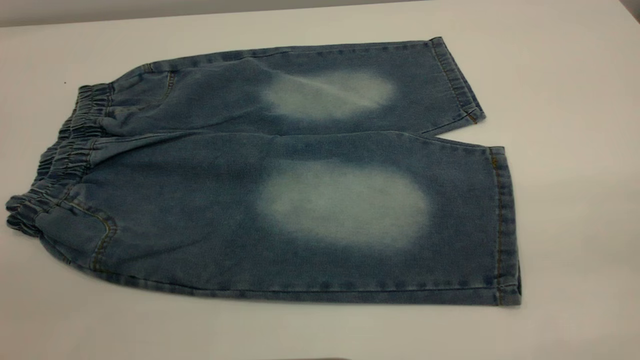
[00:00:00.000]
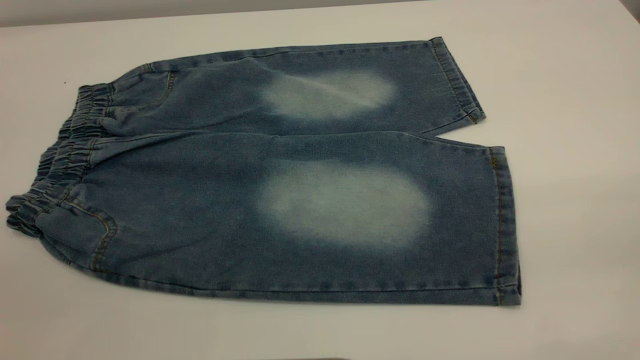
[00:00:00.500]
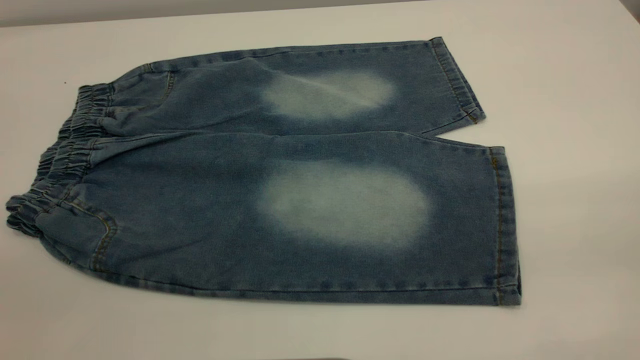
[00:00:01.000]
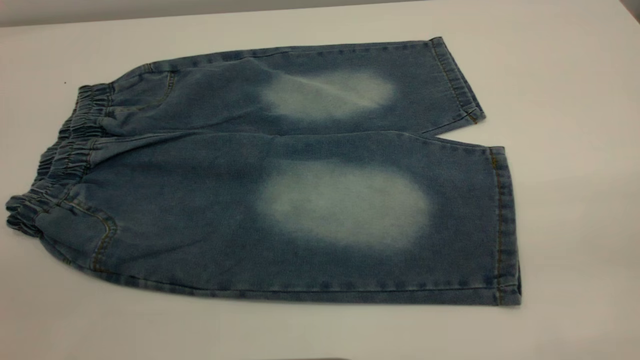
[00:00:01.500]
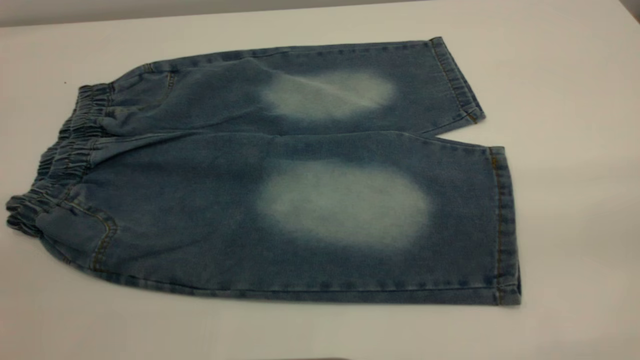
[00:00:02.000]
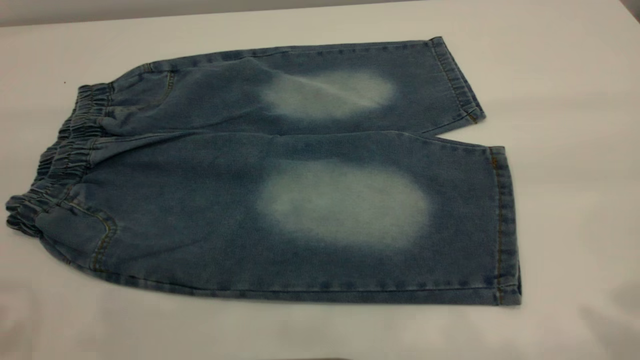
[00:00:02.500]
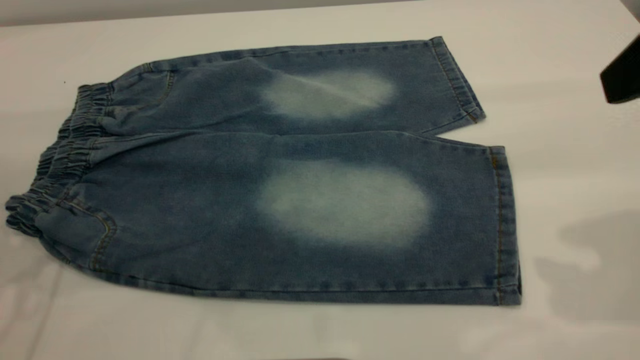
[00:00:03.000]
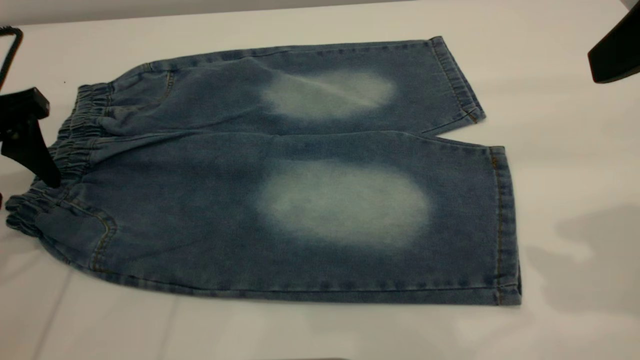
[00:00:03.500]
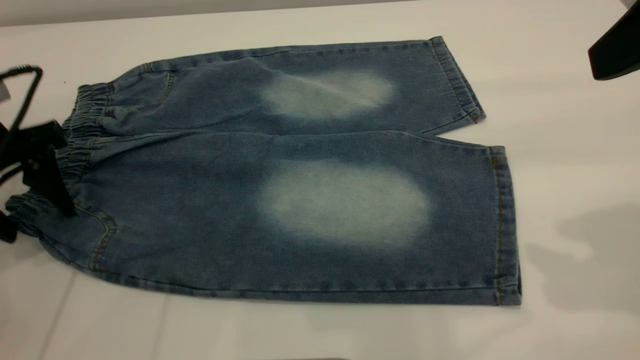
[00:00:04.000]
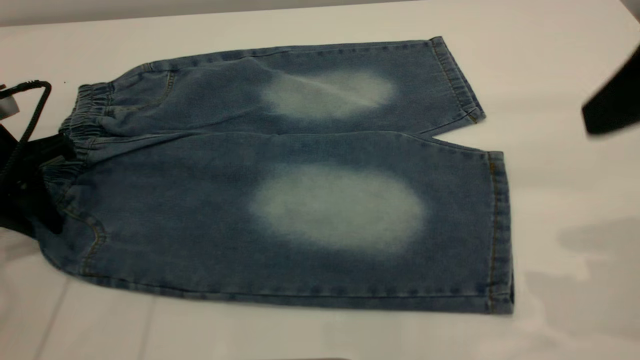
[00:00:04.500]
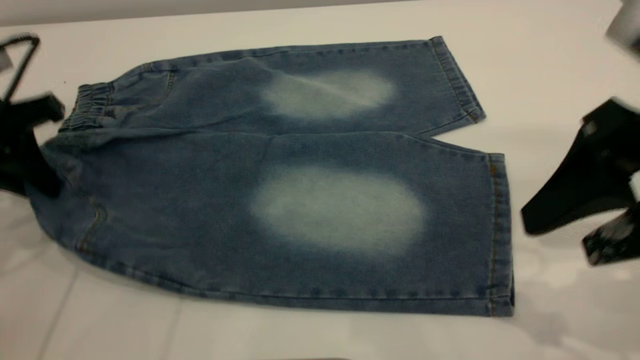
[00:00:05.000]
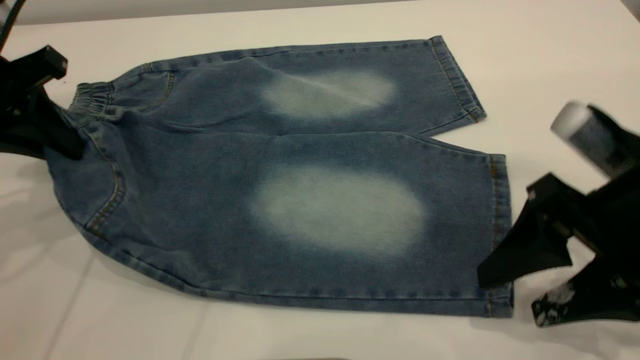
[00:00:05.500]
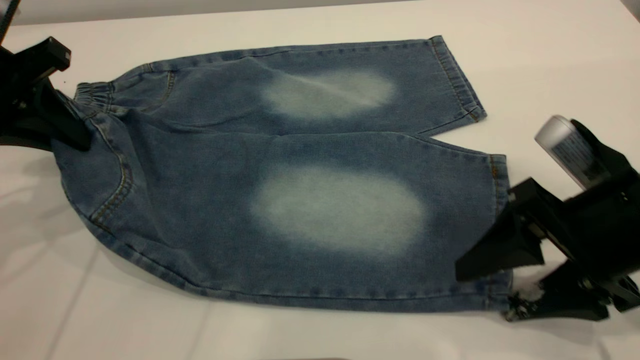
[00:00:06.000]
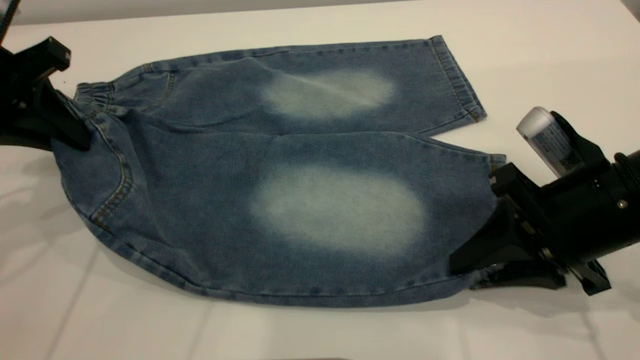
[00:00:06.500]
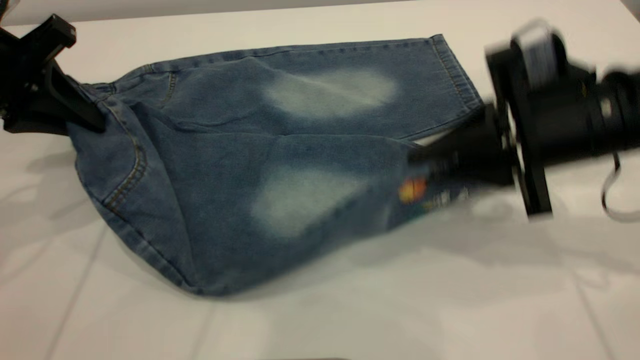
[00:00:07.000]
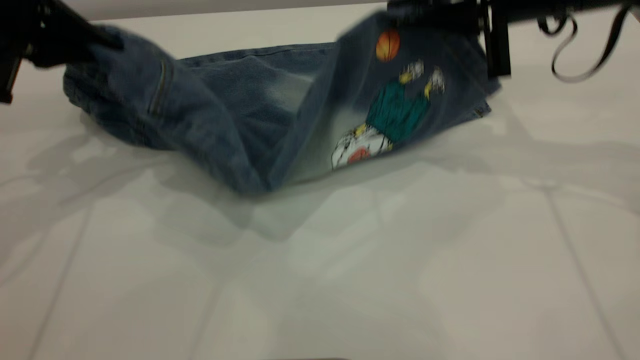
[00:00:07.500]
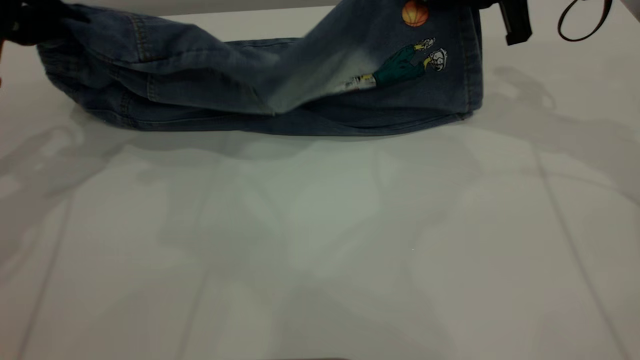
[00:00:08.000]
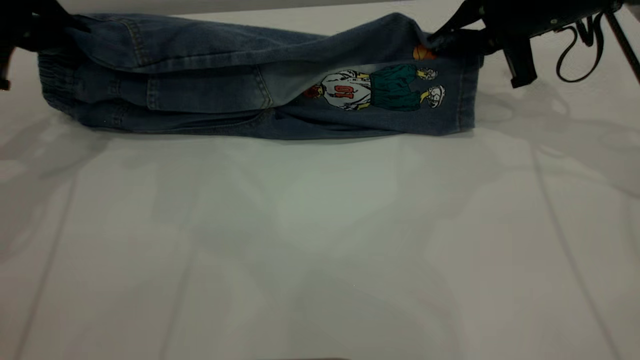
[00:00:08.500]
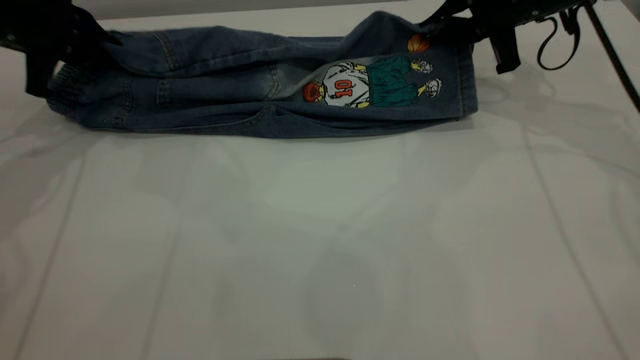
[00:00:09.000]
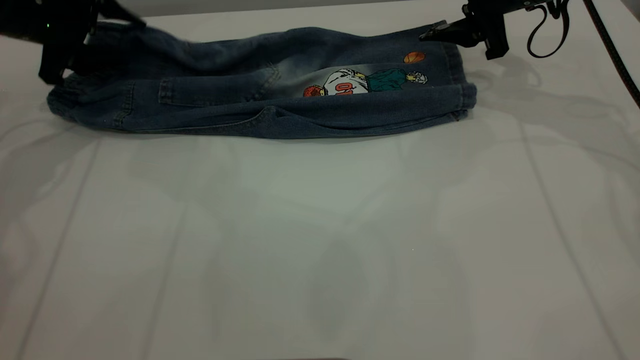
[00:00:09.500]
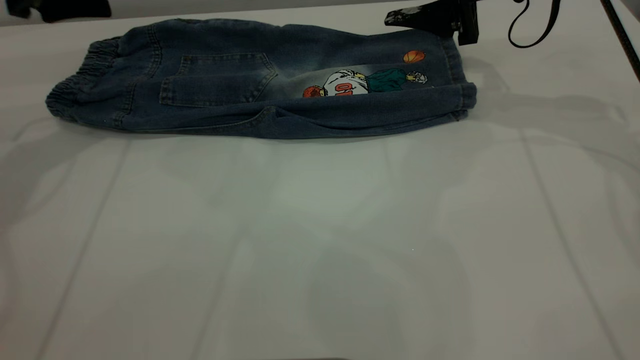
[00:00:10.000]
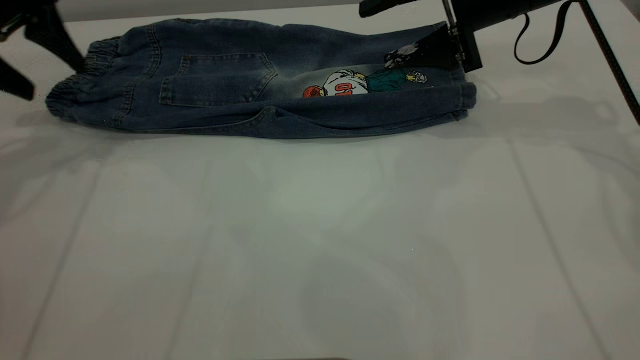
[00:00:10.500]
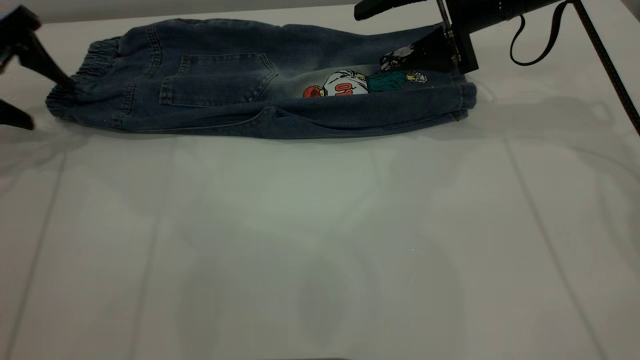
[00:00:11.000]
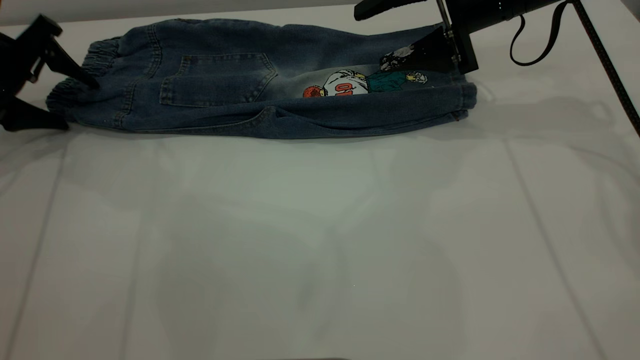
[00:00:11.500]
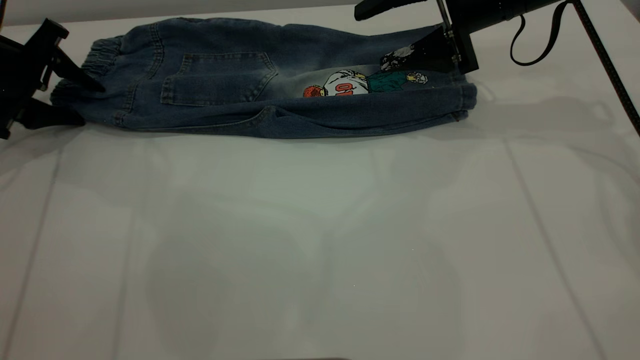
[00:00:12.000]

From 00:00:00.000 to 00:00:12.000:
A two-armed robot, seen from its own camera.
Step, from 00:00:00.000 to 00:00:09.500: Fold the bottom of the pants upward.
From 00:00:02.000 to 00:00:04.000: The left gripper travels forward and downward by approximately 35 cm. Meanwhile the right gripper moves forward, about 20 cm.
From 00:00:04.000 to 00:00:06.000: The right gripper travels downward by about 20 cm. Meanwhile the left gripper goes approximately 5 cm upward, and closes its fingers.
From 00:00:06.000 to 00:00:08.000: The right gripper shifts approximately 25 cm forward and upward, and closes.
From 00:00:08.000 to 00:00:10.000: The left gripper shifts approximately 10 cm forward, and opens. The right gripper opens up.
From 00:00:10.000 to 00:00:12.000: The left gripper is displaced downward and to the left by roughly 15 cm, and closes its fingers.

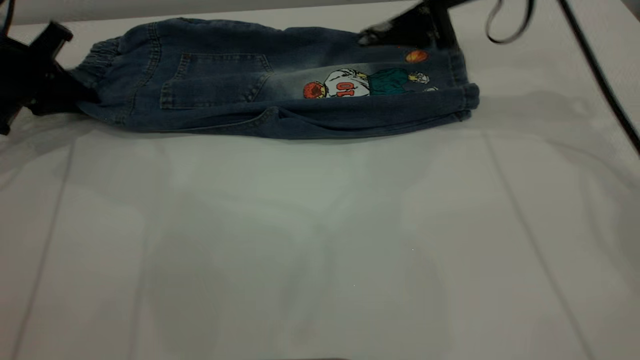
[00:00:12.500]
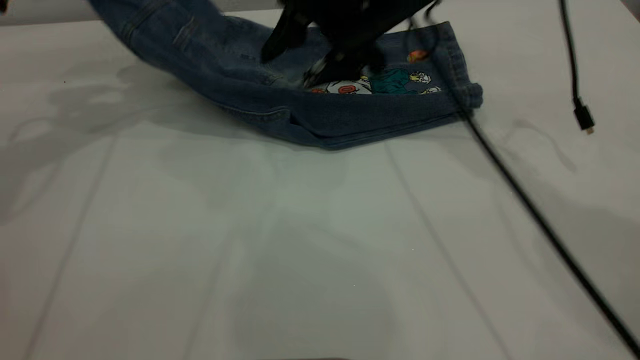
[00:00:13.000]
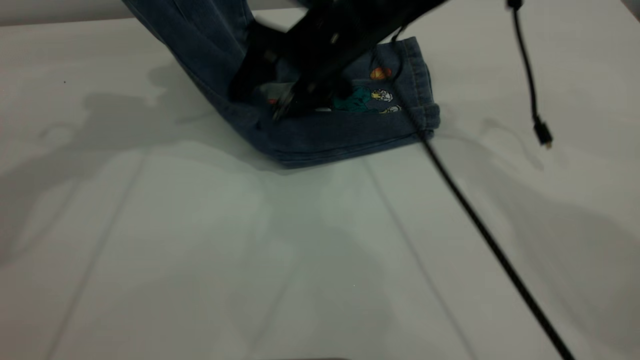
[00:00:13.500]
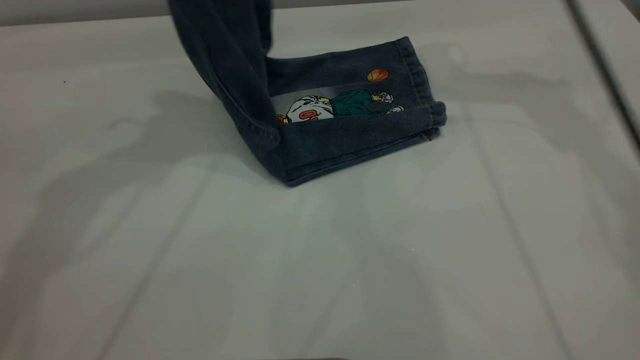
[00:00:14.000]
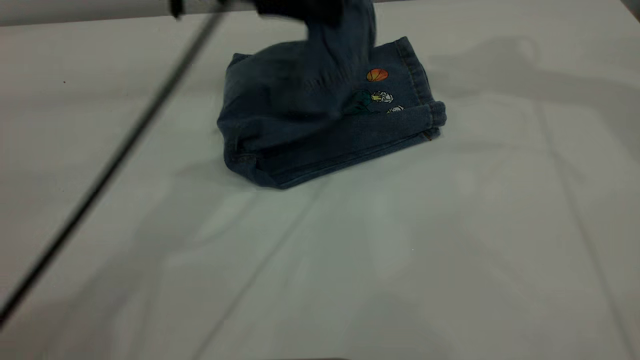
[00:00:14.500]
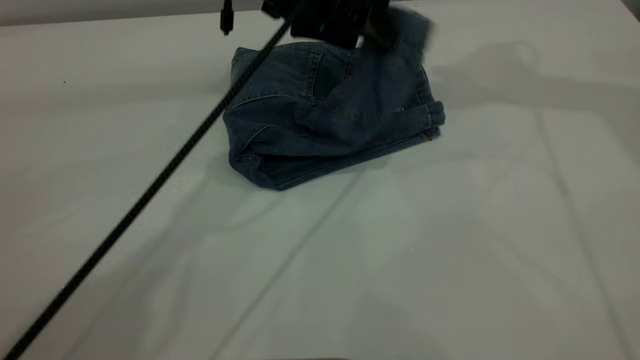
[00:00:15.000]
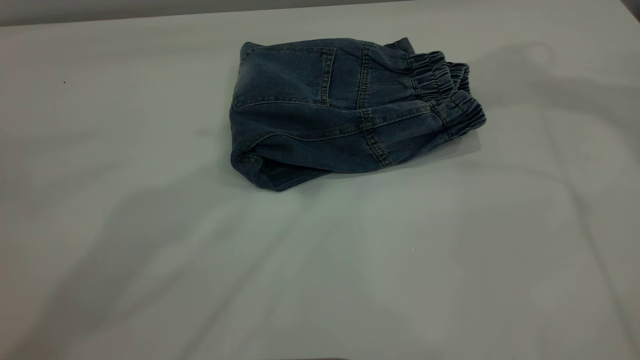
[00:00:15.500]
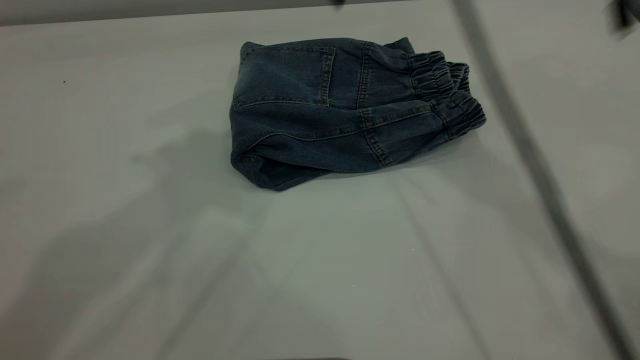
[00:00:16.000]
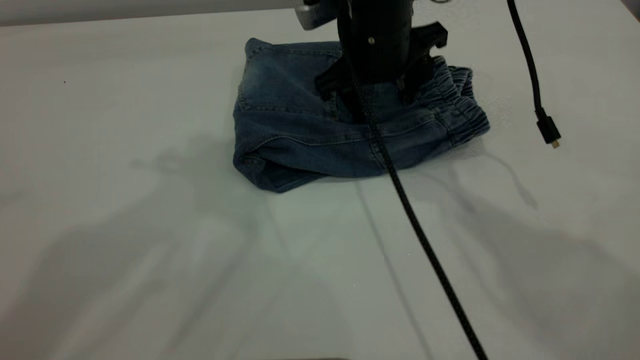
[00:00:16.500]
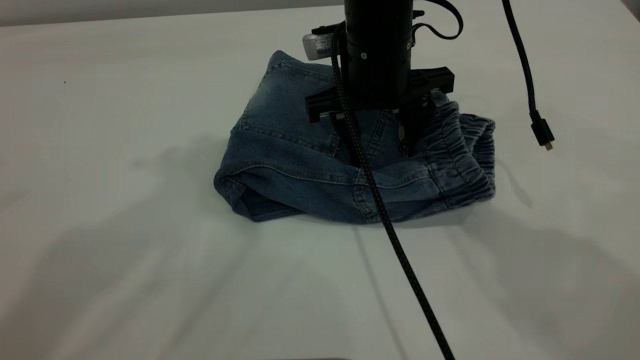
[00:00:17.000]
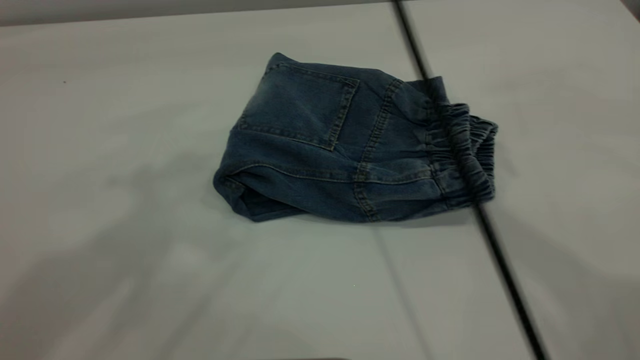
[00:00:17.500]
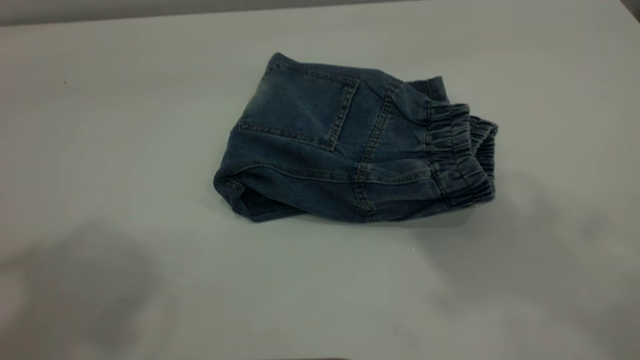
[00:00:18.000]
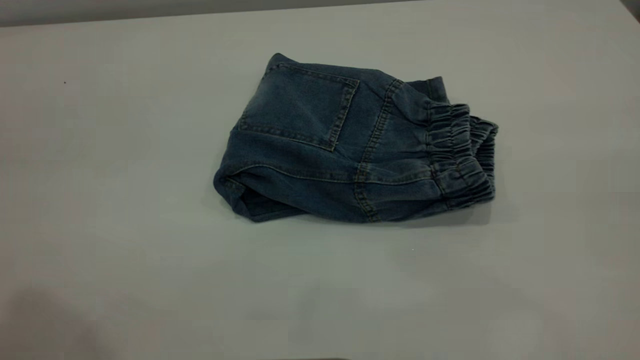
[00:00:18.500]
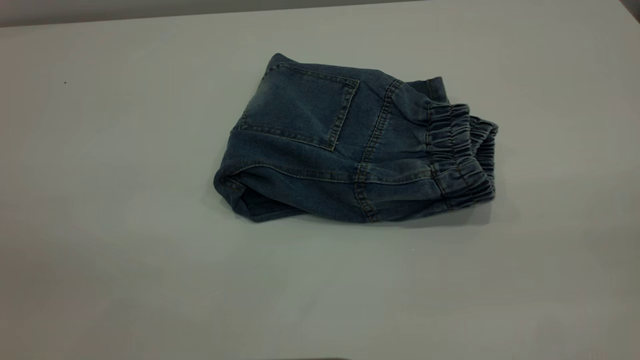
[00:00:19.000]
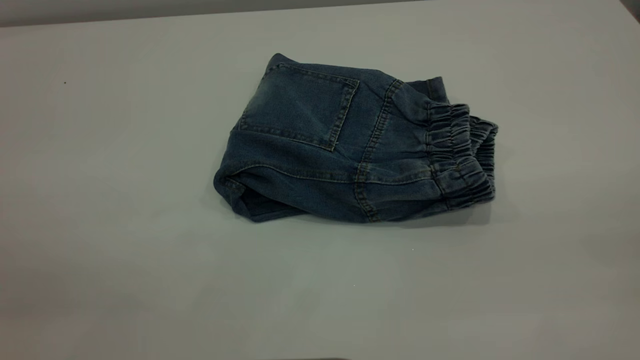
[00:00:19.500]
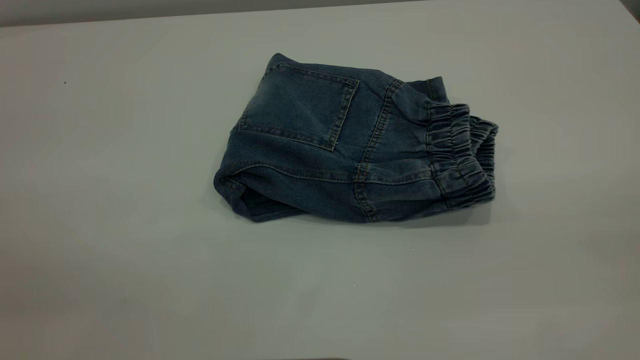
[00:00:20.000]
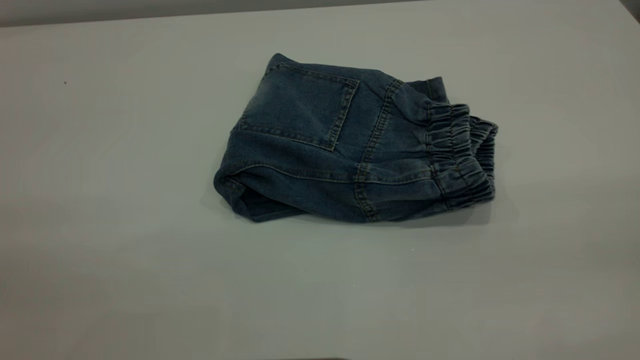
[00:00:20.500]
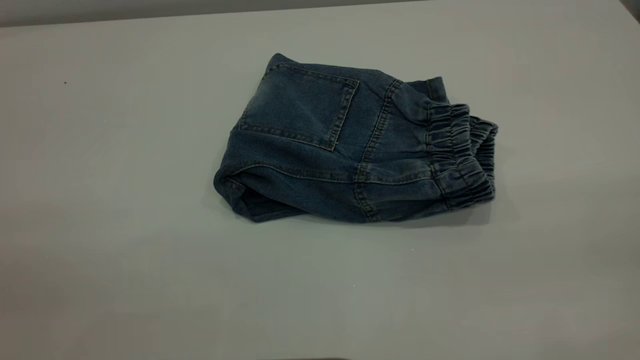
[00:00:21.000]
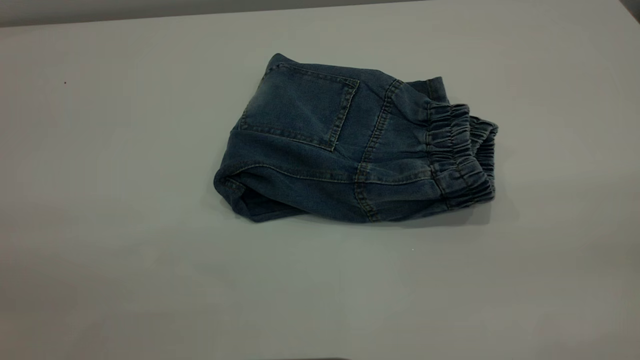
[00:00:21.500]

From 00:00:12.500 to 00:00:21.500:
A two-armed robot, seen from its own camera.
Step, from 00:00:12.500 to 00:00:15.000: Fold the pants from left to right.
From 00:00:12.500 to 00:00:14.500: The right gripper shifts some 20 cm upward; the left gripper shifts about 30 cm to the right.
From 00:00:14.500 to 00:00:17.000: The right gripper goes about 30 cm downward and to the left. Meanwhile the left gripper shifts roughly 25 cm upward, and opens its fingers.
From 00:00:17.000 to 00:00:19.500: The right gripper shifts approximately 50 cm backward, to the right and upward, while the left gripper heads backward, to the left and downward, covering about 35 cm.
